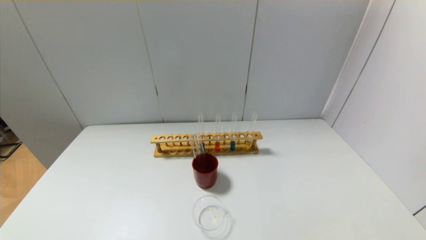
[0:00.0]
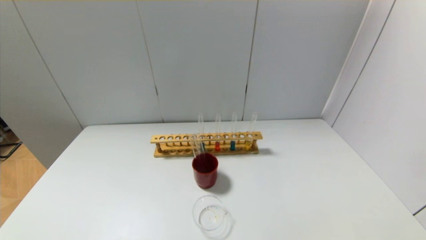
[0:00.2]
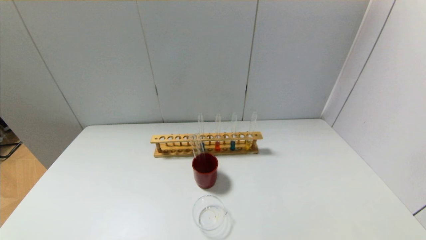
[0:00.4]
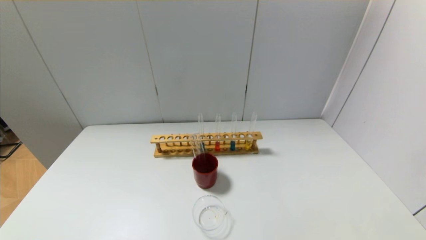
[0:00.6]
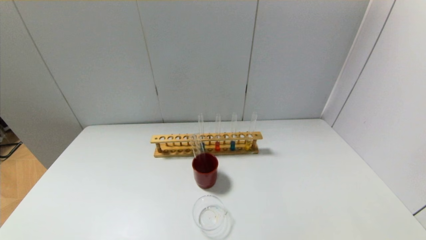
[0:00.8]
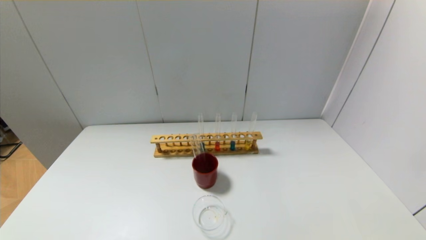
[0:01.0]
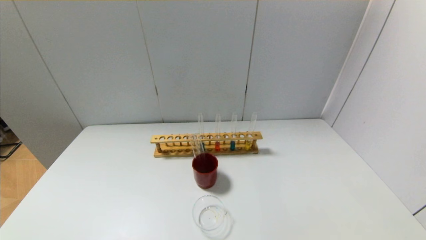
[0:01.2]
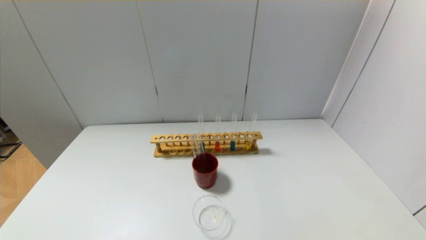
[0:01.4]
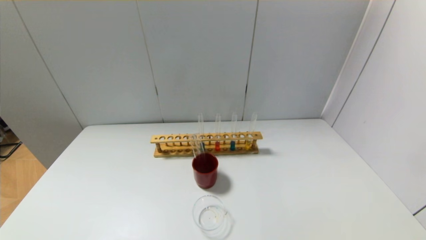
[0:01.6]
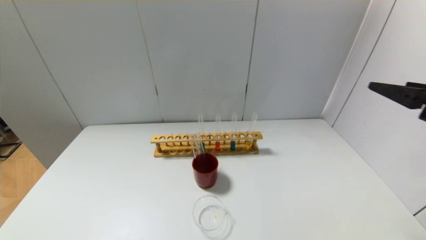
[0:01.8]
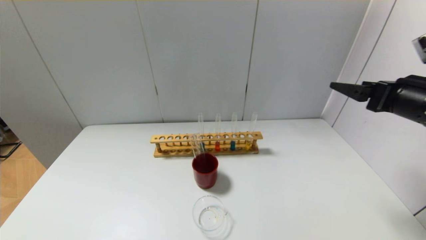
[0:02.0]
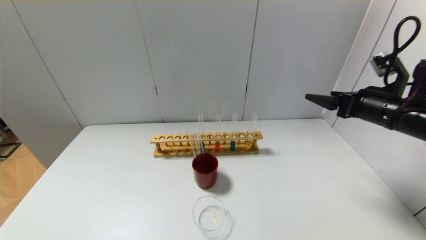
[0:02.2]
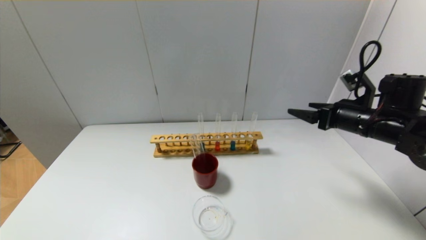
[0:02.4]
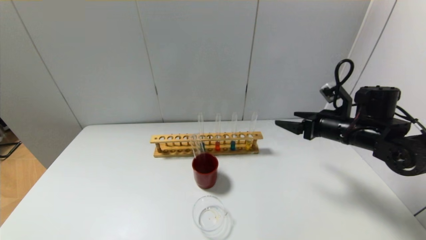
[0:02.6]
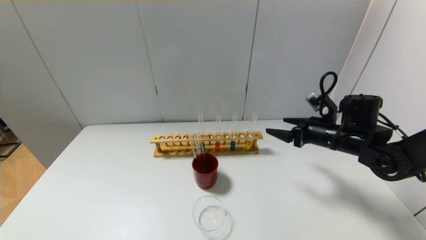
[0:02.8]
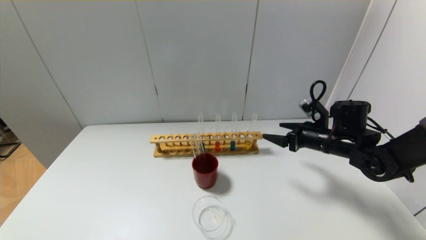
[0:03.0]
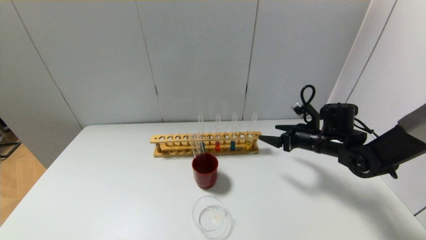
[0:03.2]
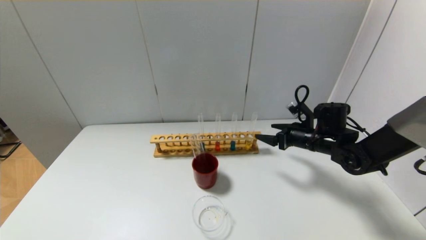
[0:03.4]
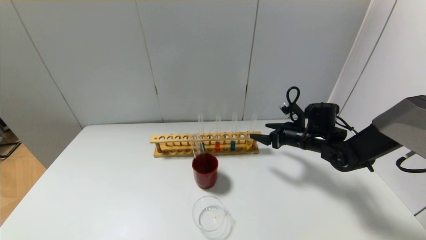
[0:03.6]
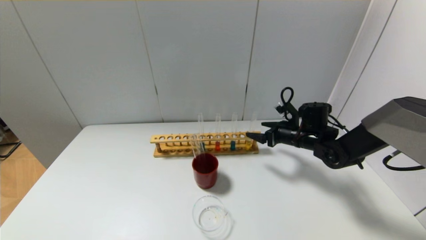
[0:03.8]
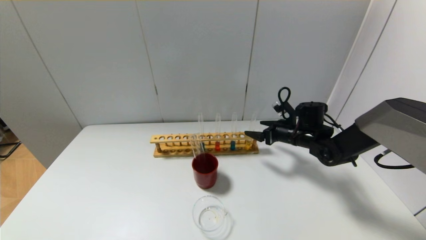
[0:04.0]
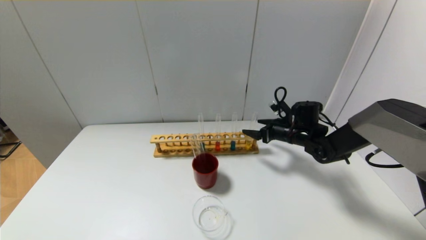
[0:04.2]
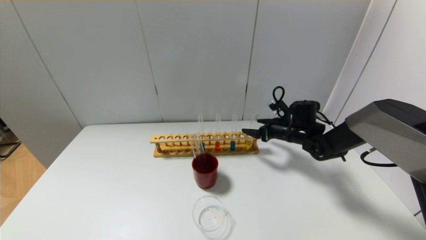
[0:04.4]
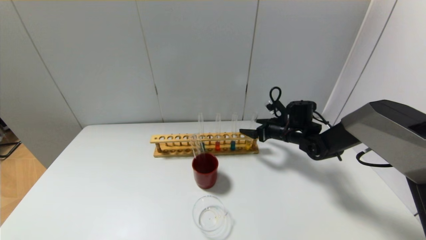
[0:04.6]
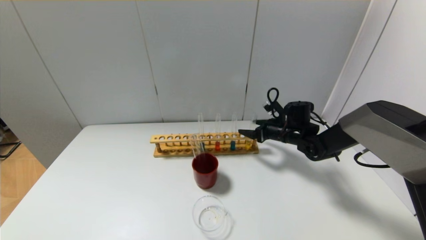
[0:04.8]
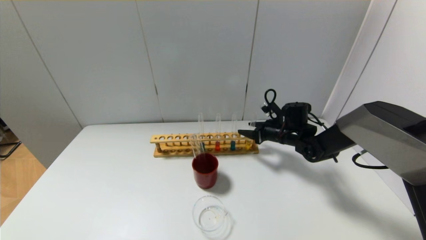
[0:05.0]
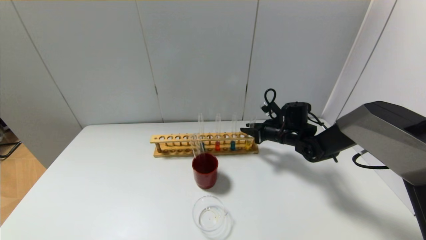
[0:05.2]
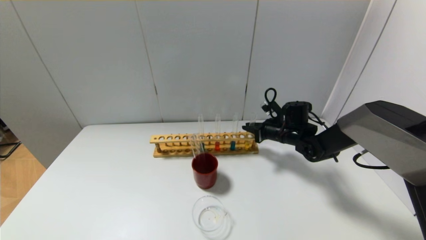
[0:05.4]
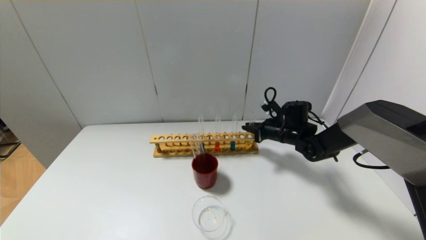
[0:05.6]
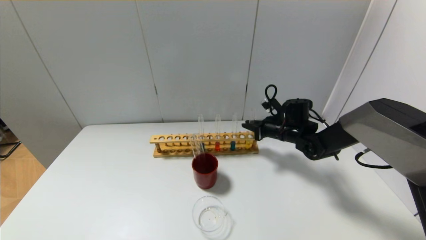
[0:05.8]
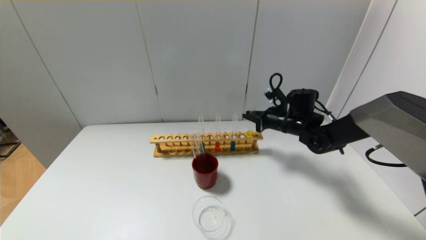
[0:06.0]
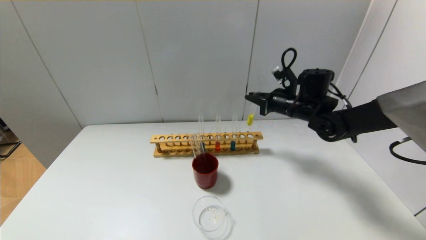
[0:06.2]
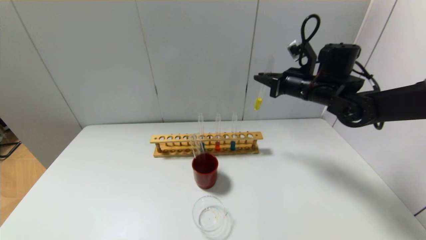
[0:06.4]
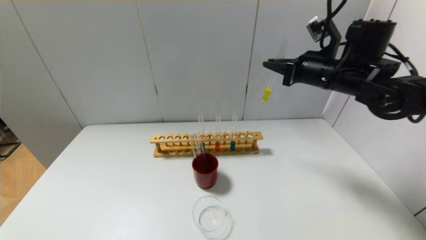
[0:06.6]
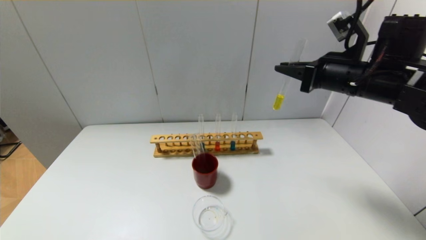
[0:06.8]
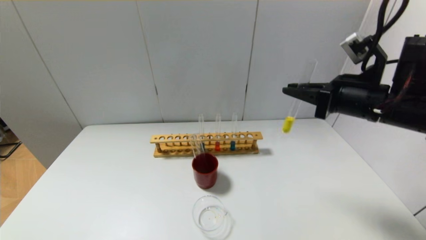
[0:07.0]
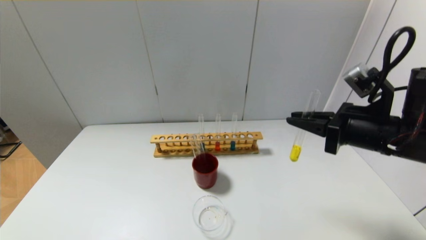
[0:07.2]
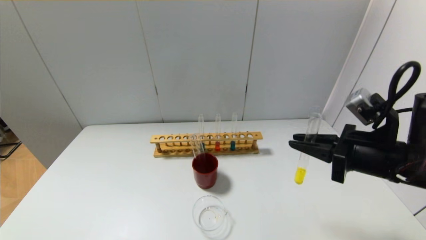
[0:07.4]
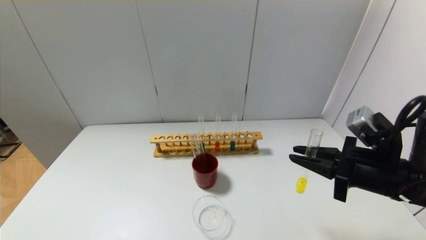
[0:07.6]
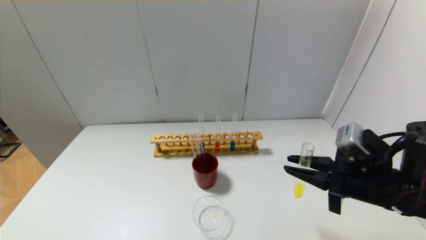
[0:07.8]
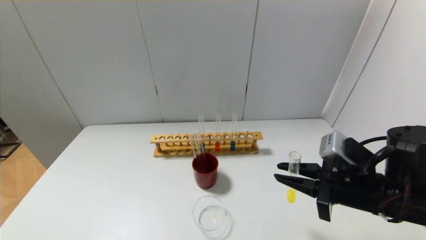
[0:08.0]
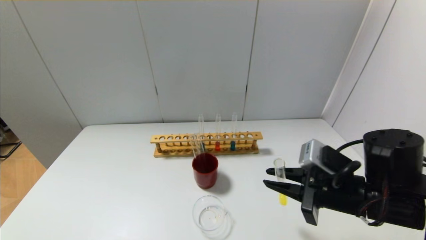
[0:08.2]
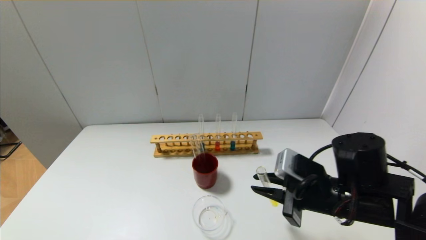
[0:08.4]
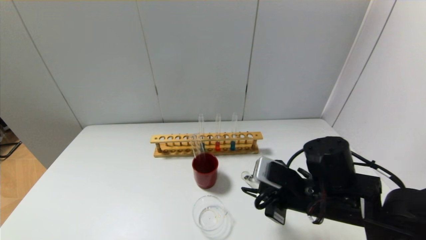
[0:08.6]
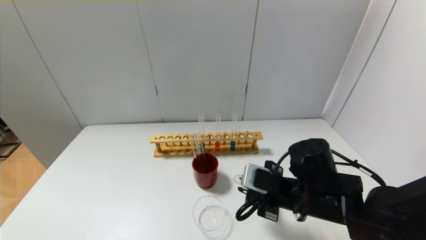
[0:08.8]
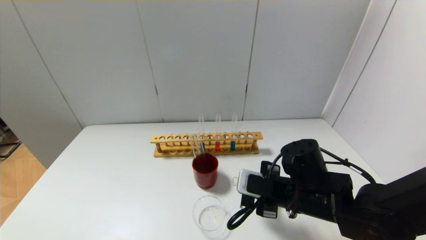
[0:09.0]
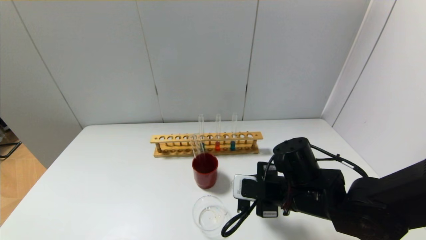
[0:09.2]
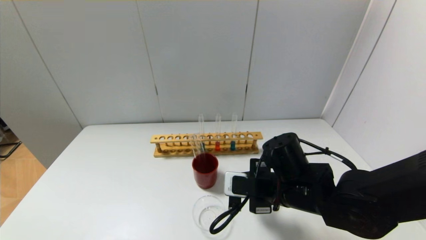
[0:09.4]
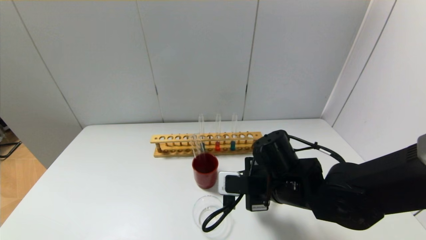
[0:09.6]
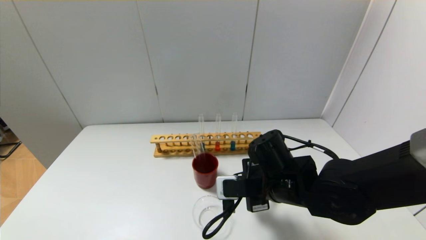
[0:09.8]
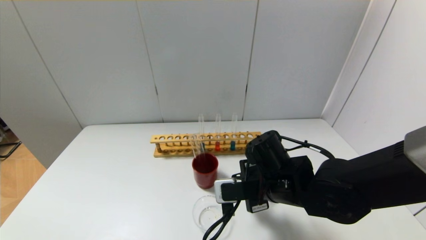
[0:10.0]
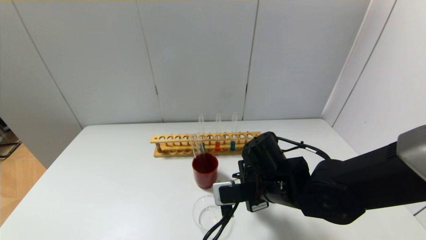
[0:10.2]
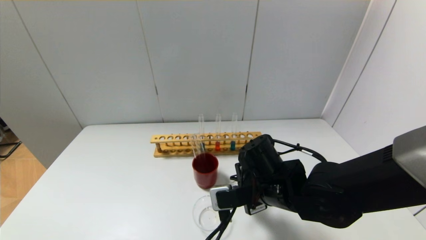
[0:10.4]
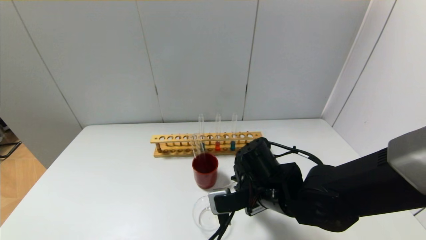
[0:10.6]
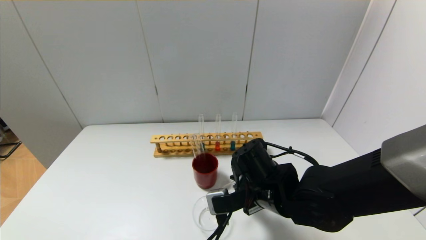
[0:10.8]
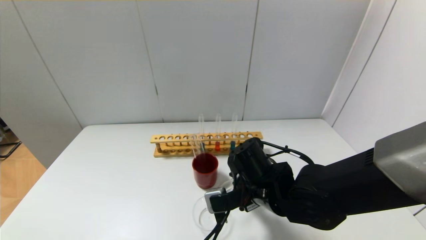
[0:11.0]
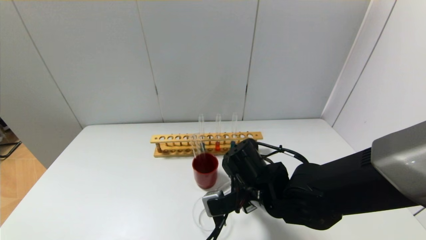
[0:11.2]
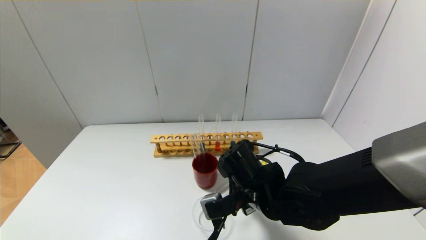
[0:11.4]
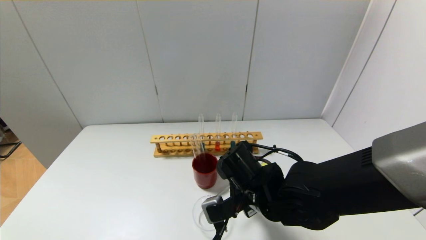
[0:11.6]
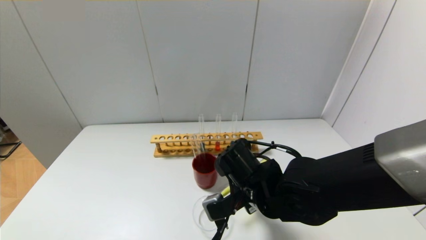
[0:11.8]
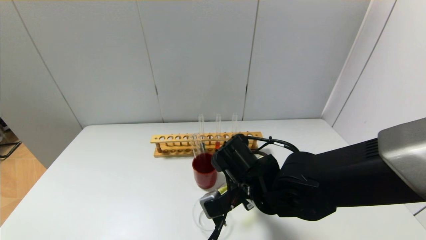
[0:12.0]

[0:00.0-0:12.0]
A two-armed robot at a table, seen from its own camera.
Step, 0:00.0 to 0:05.4: Grasp the yellow reagent with the right gripper.
0:01.6 to 0:03.0: The right gripper moves forward and downward, roughly 30 cm.
0:03.0 to 0:04.4: The right gripper travels forward by some 10 cm.
0:04.4 to 0:06.0: The right gripper shifts about 5 cm upward, and closes up.
0:06.0 to 0:07.6: The right gripper moves backward, roughly 25 cm.
0:07.6 to 0:09.0: The right gripper is displaced to the left and downward by roughly 15 cm.
0:09.0 to 0:10.4: The right gripper goes some 5 cm to the left.

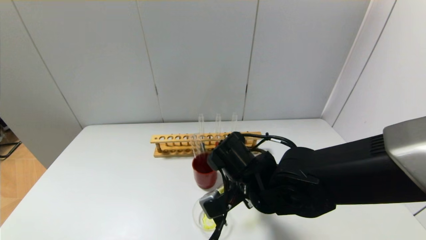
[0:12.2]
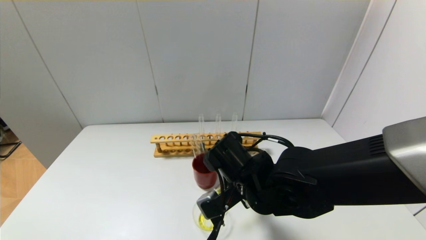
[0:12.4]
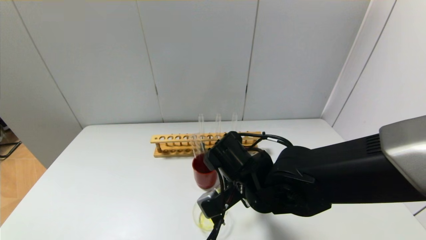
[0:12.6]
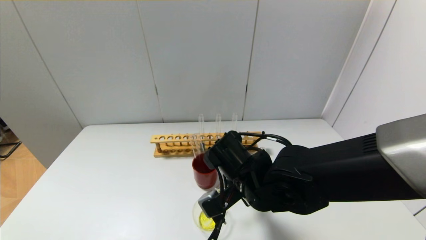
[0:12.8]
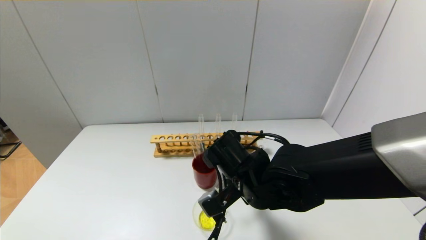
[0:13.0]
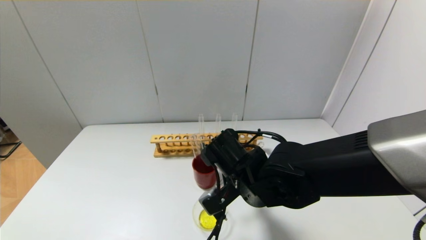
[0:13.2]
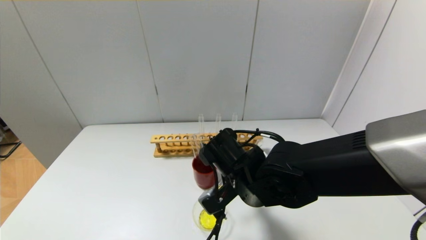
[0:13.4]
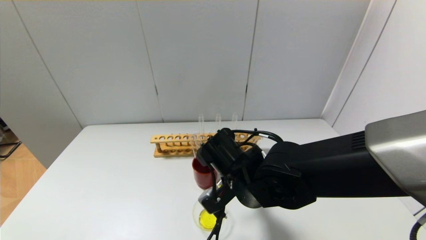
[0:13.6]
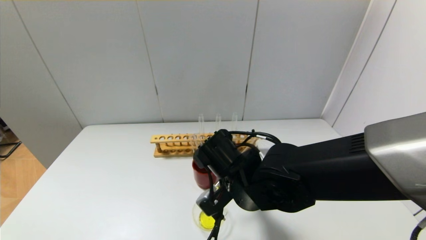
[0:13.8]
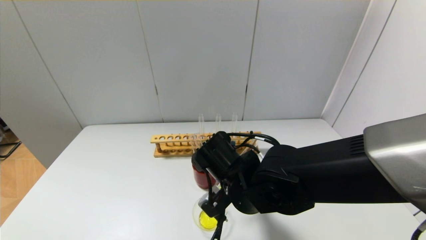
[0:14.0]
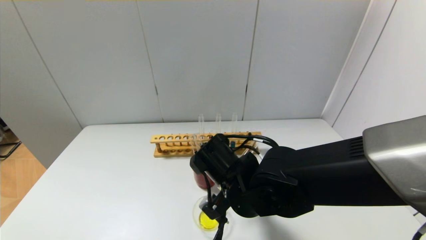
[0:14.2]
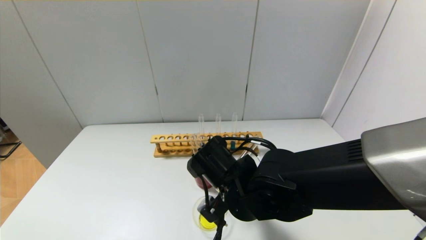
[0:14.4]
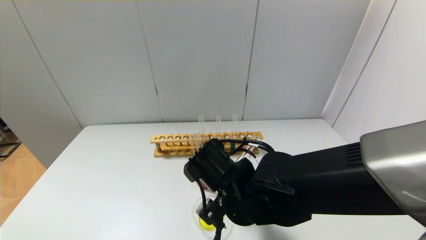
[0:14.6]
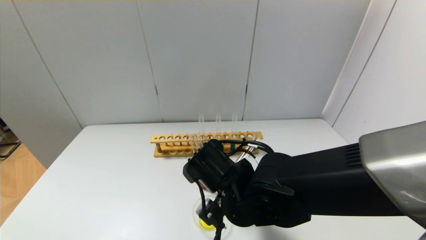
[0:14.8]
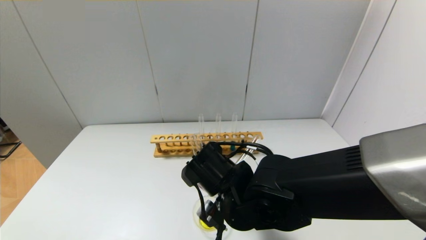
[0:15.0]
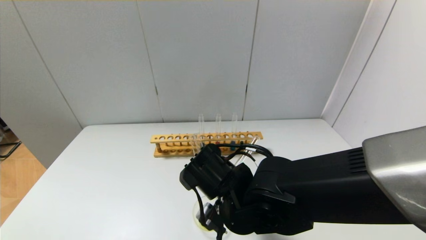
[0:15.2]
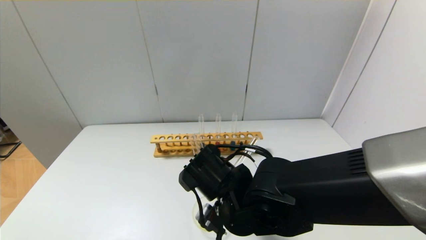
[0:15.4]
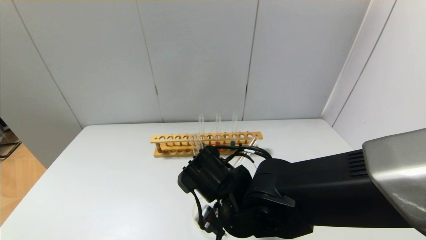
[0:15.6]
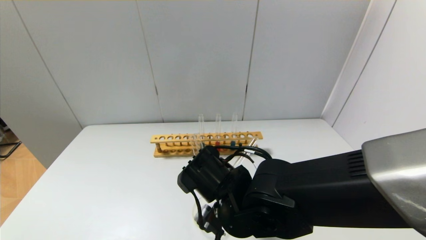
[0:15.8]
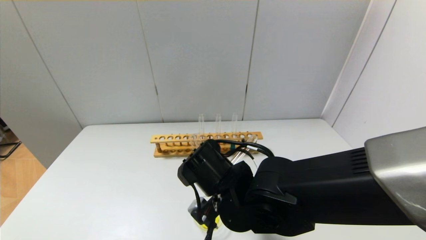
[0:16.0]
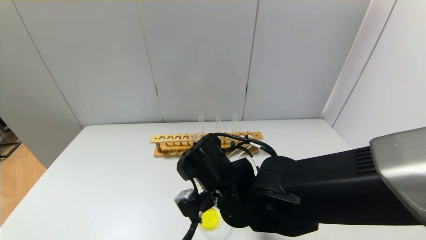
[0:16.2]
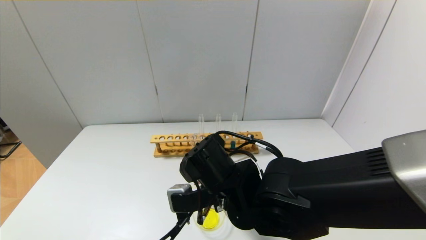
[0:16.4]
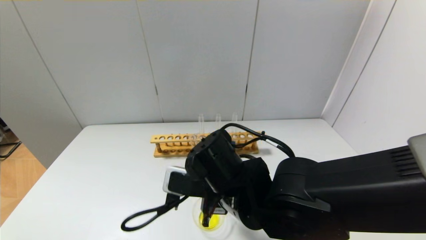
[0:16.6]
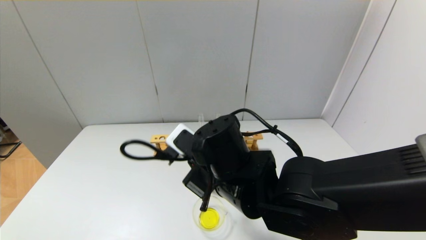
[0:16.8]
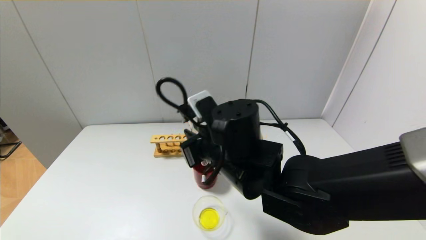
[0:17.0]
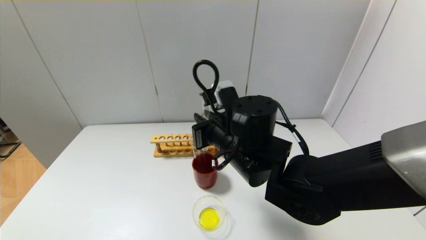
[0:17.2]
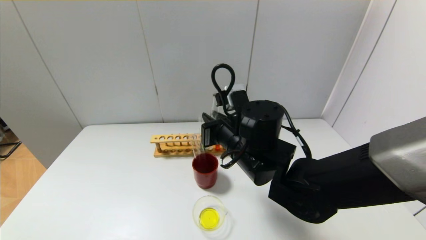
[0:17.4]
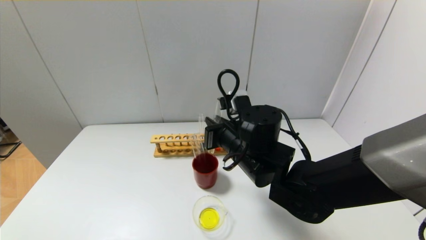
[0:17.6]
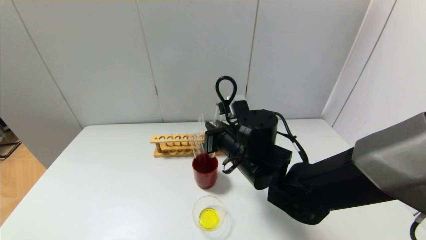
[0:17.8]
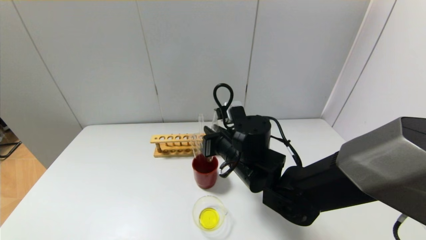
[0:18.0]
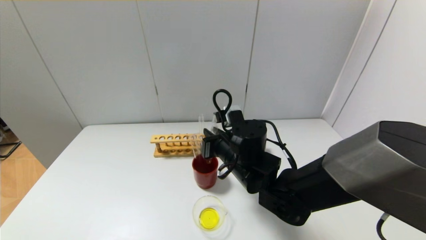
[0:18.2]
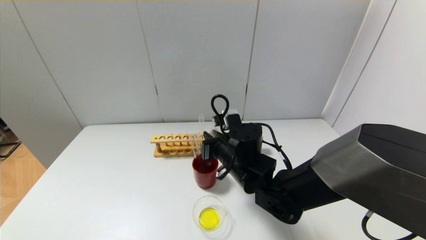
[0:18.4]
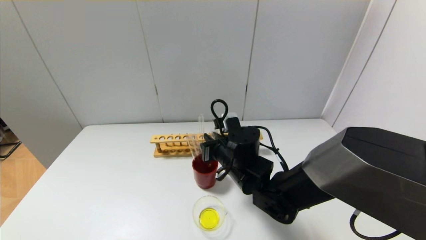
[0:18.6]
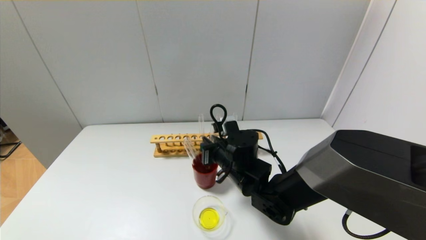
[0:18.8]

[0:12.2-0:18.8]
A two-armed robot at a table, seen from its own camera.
Step, 0:12.2 to 0:16.0: Pour the yellow reagent into the graduated cylinder with the right gripper.
0:12.2 to 0:13.8: The grippers stay close to where they were, moving slightly.
0:13.8 to 0:15.4: There are only small adjustments of the grippers.
0:15.4 to 0:17.2: The right gripper shifts some 5 cm upward.
0:17.2 to 0:18.8: The right gripper travels downward by some 10 cm.
